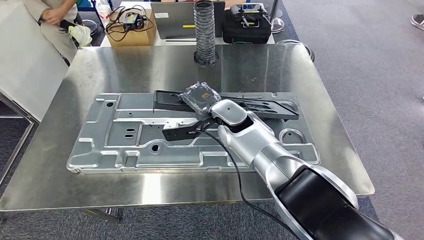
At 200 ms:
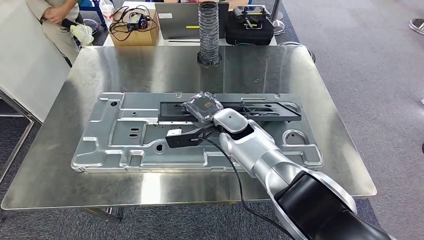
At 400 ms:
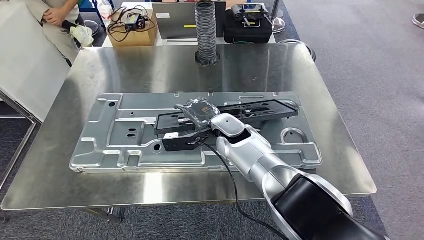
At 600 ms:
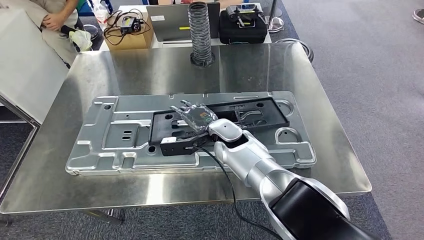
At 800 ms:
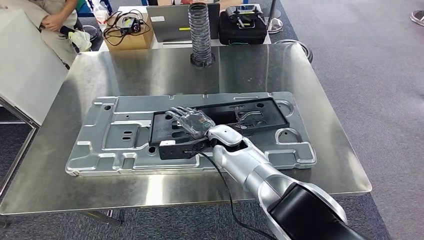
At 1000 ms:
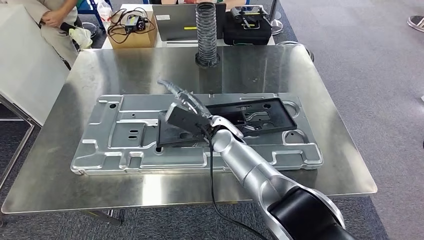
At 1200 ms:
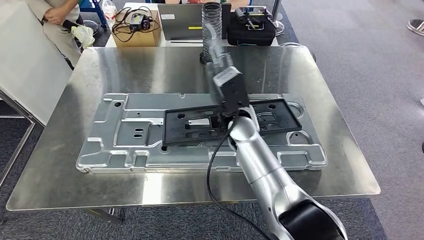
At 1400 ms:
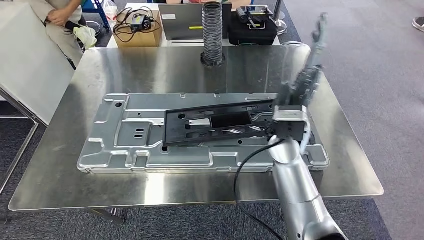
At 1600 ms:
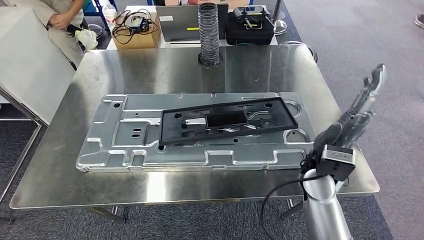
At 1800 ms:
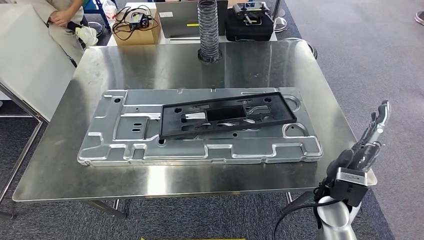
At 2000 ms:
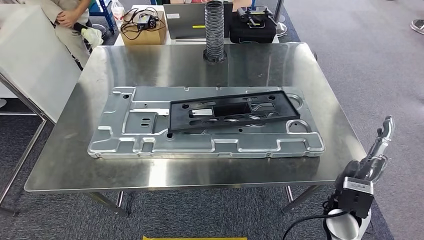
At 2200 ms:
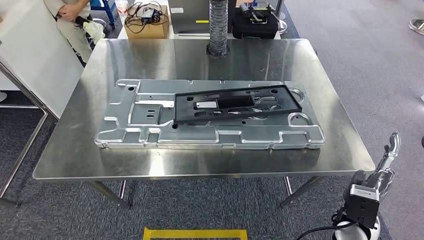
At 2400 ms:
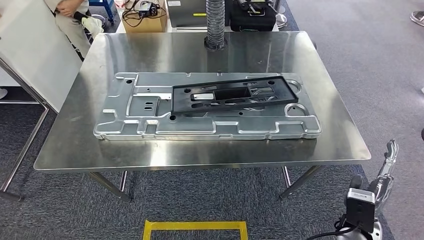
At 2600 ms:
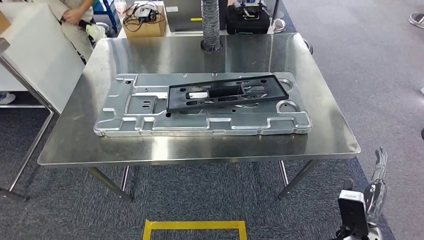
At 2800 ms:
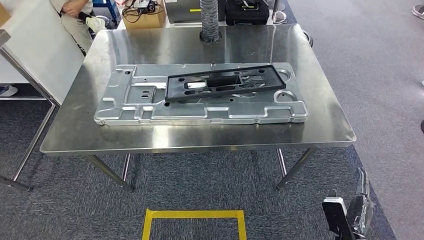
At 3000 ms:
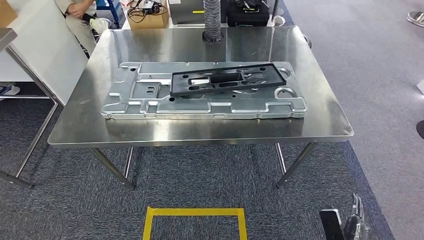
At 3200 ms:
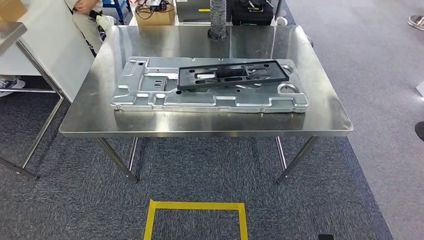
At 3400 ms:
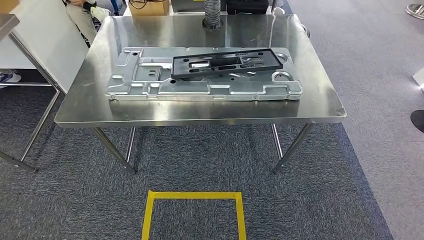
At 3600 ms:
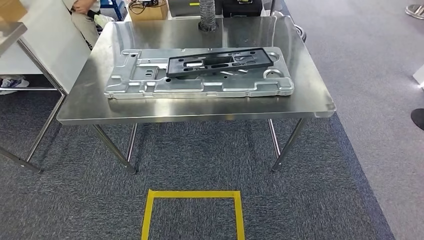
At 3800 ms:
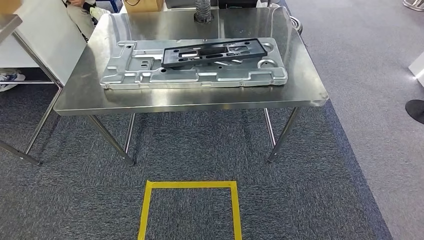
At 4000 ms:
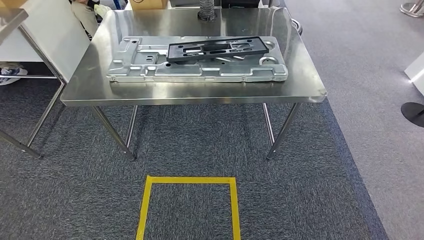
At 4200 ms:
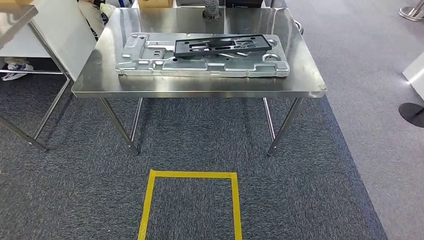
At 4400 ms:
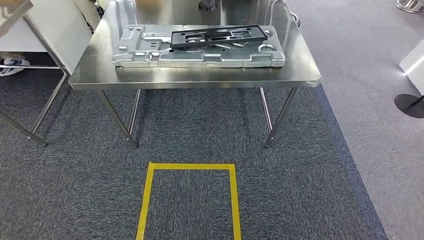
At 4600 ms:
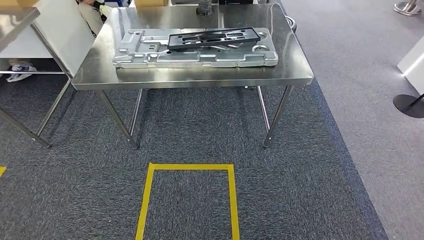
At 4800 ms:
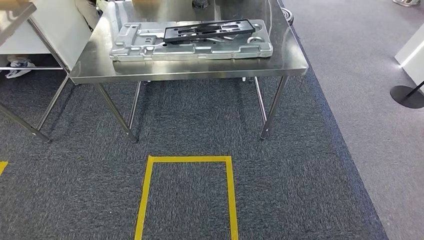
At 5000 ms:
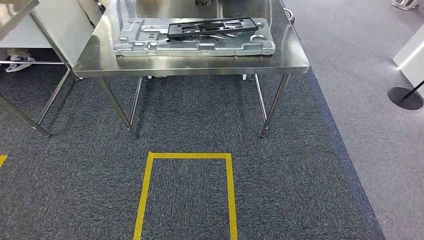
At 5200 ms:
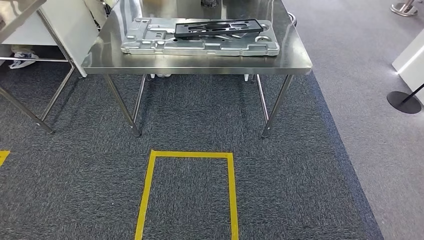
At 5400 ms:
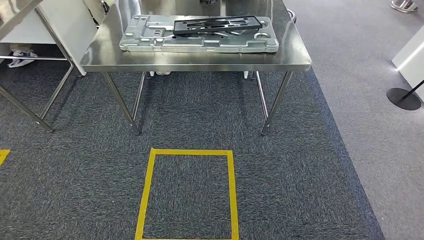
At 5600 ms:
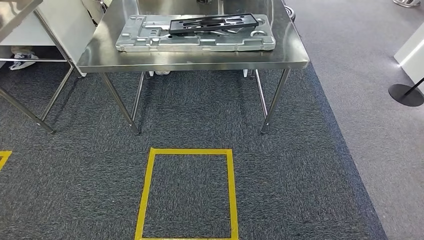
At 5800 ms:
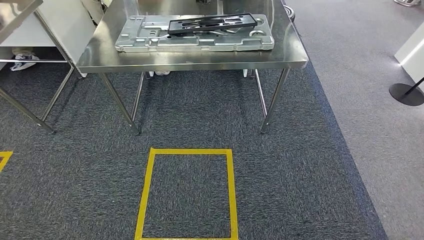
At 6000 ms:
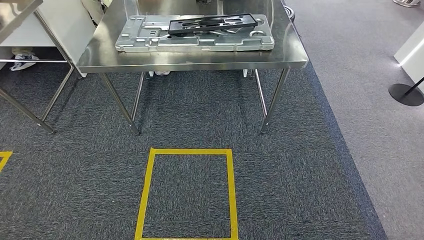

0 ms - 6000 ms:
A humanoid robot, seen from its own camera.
Step, 1800 ms - 6000 ms: Return to the initial position at the workbench.
